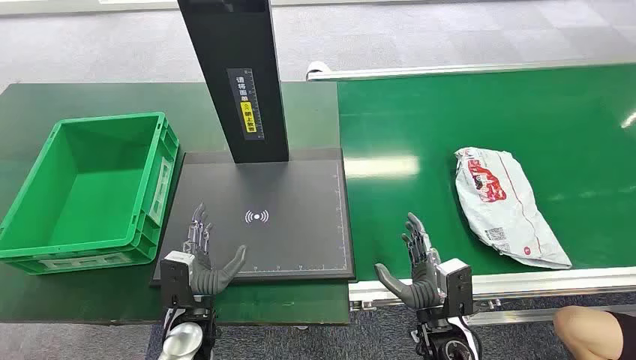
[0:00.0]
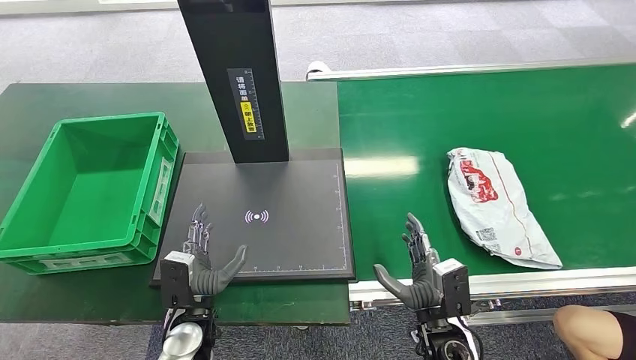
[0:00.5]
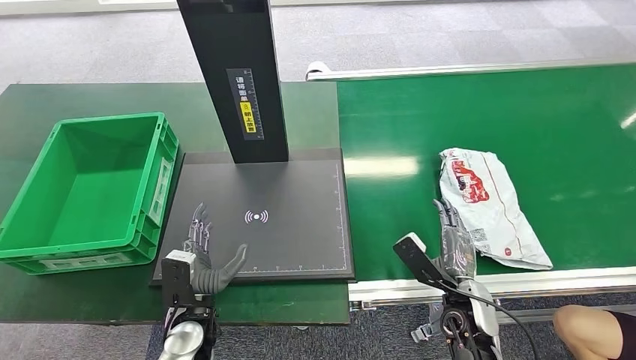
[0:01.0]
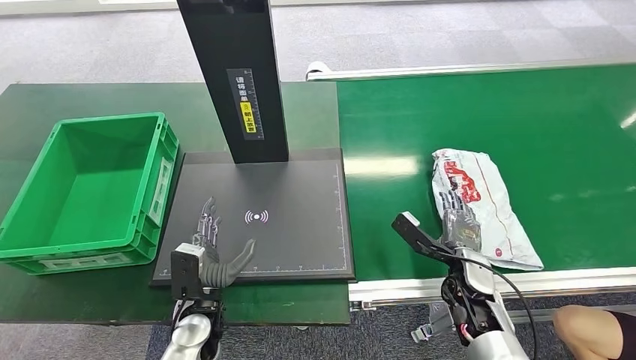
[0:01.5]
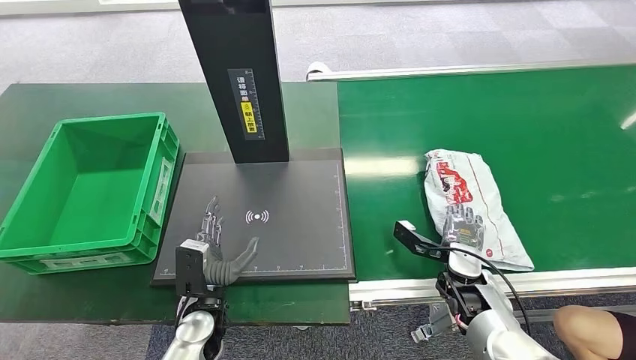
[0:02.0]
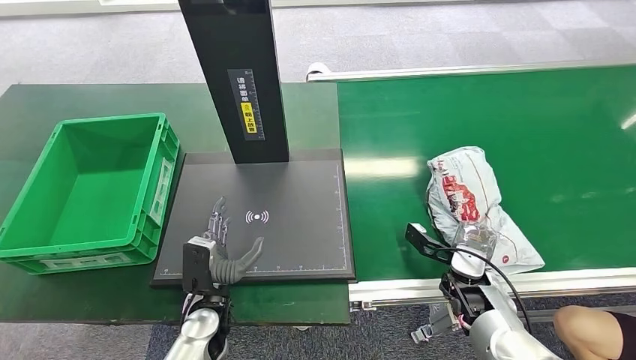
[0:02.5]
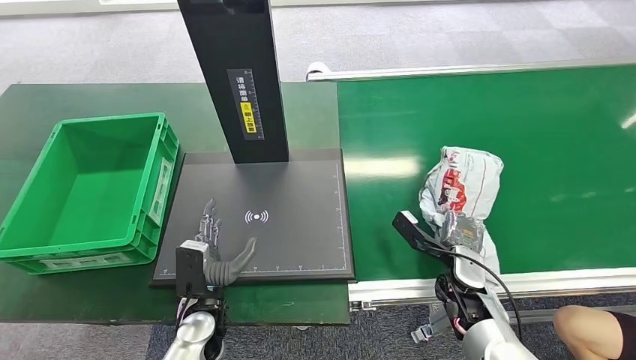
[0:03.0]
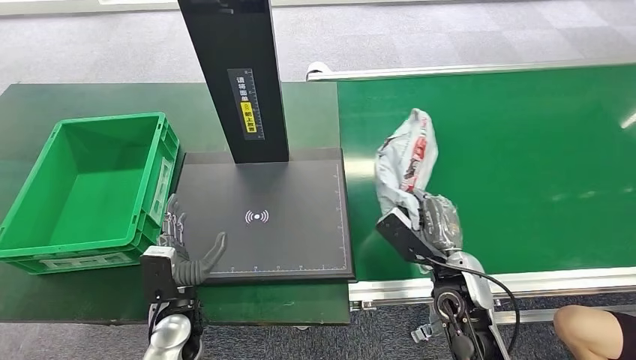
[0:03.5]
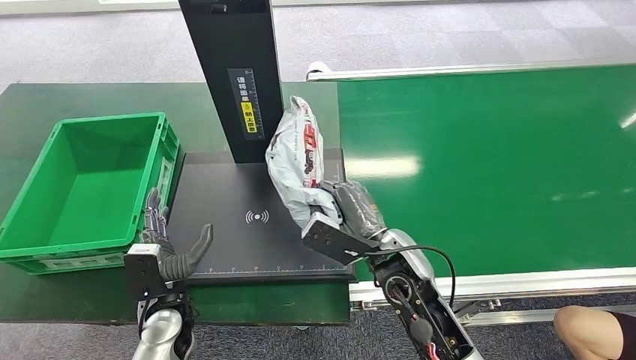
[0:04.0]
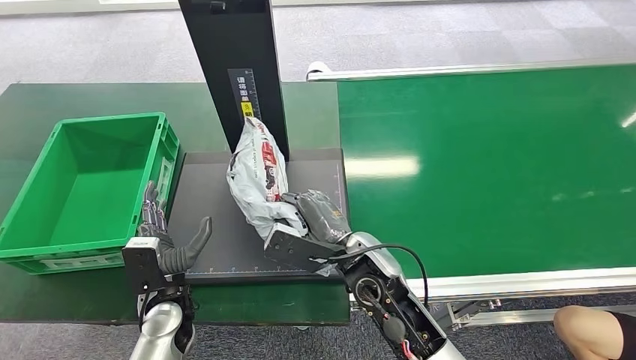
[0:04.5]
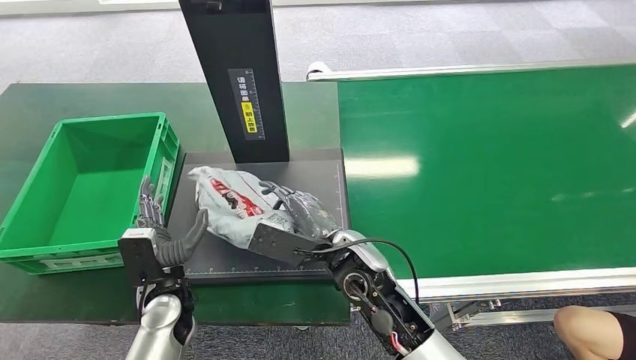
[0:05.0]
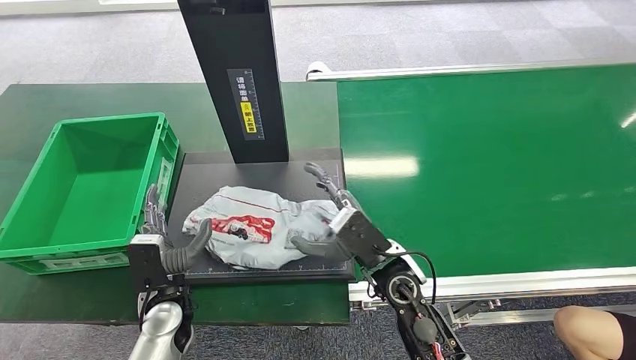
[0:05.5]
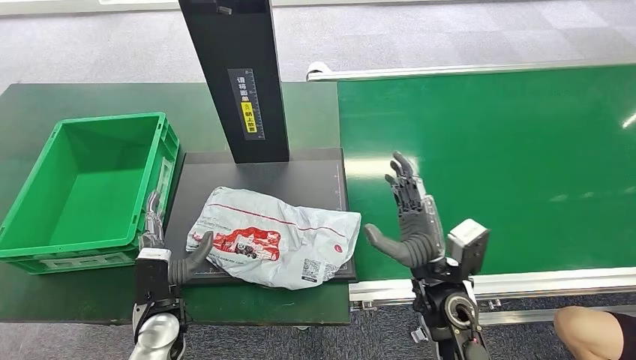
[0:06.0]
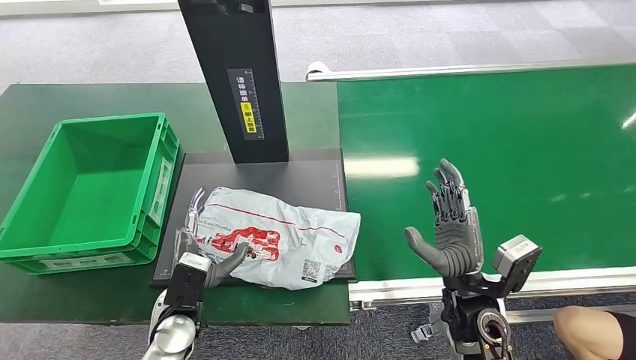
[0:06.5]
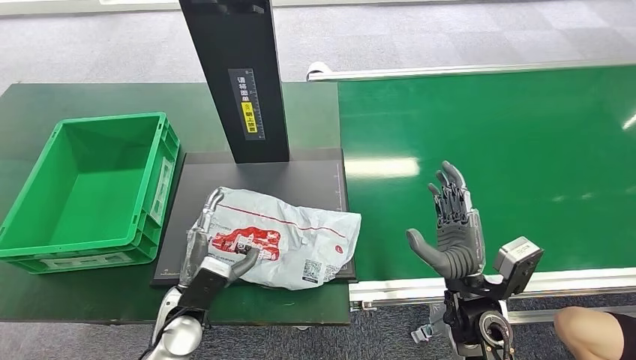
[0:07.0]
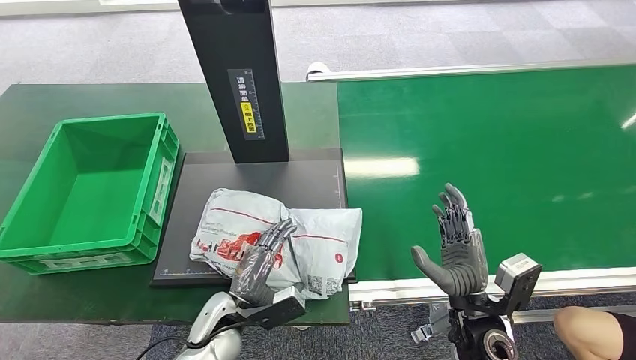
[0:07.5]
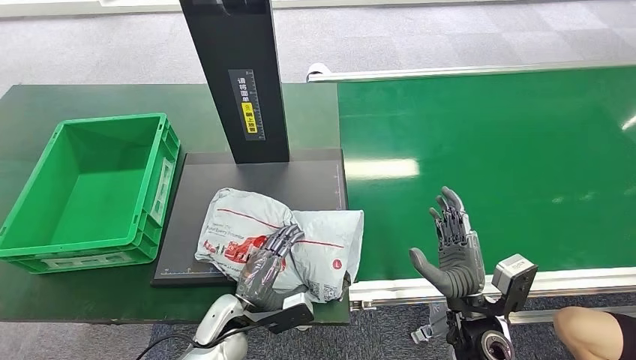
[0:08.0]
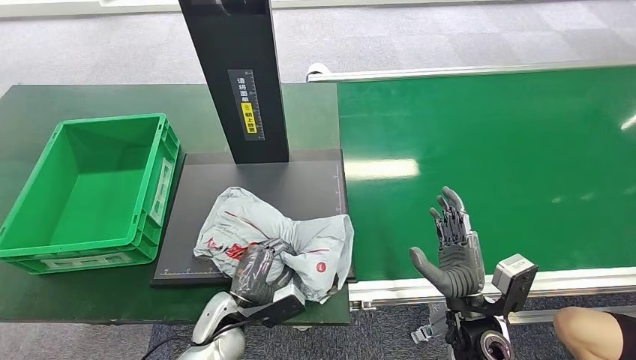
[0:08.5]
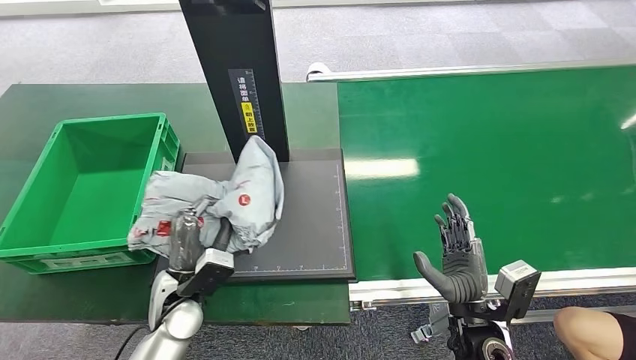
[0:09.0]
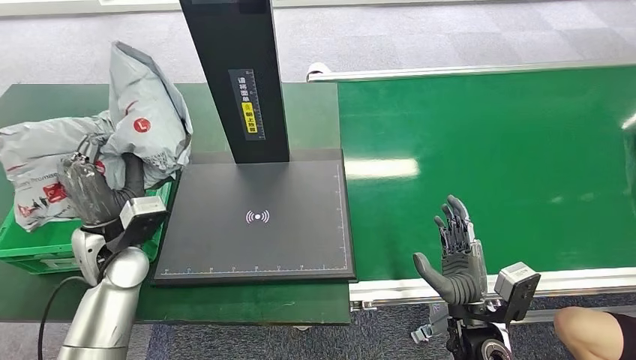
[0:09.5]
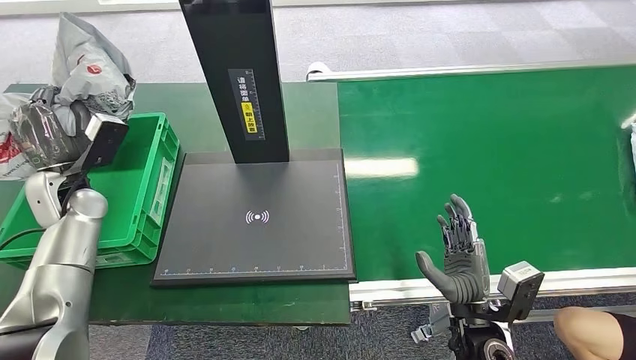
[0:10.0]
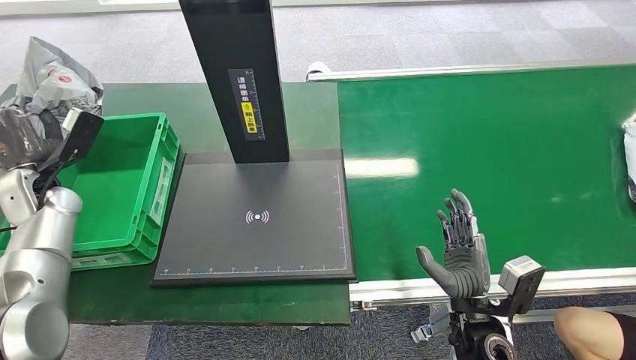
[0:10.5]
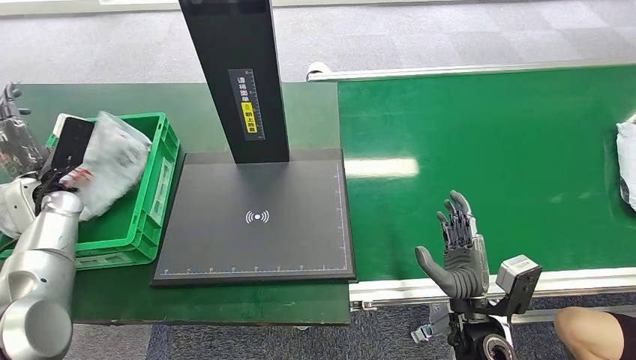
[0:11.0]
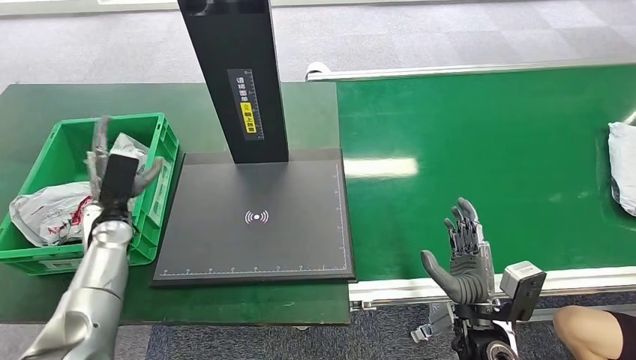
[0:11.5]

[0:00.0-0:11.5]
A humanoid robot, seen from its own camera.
Step, 0:00.0 to 0:03.5: Pick up the package from the conveyor belt.
Step, 0:04.0 to 0:06.0: Place the package onto the inbound machine.
Step, 0:06.5 to 0:09.0: Pick up the package from the inbound machine.
Step, 0:09.5 to 0:11.5: Place the package into the parcel locker.
0:04.0 to 0:06.0: The right hand goes some 5 cm to the right.
0:06.0 to 0:07.5: The hands both shift to the right by roughly 5 cm.
0:09.5 to 0:11.5: The left hand travels to the left, forward and downward by some 10 cm.
